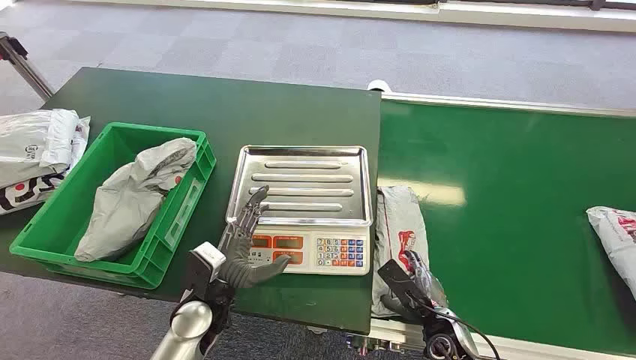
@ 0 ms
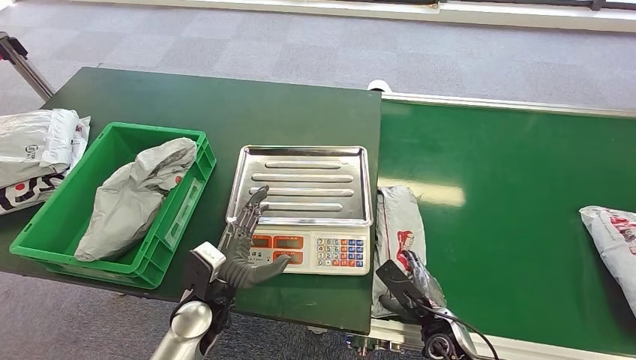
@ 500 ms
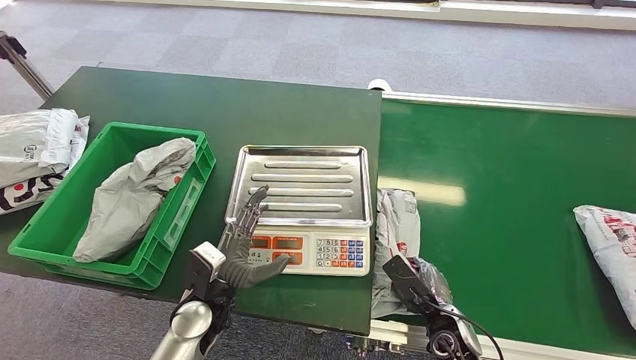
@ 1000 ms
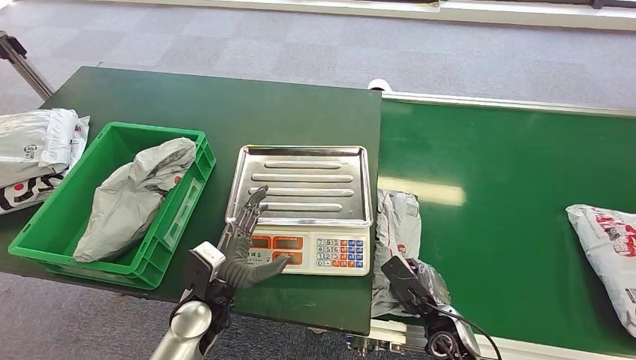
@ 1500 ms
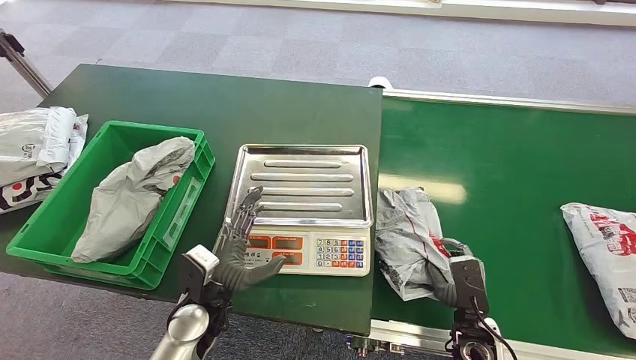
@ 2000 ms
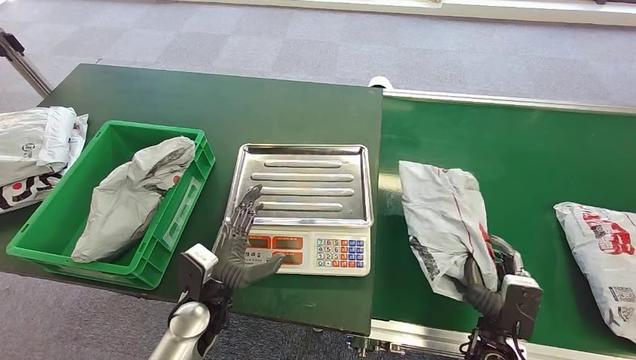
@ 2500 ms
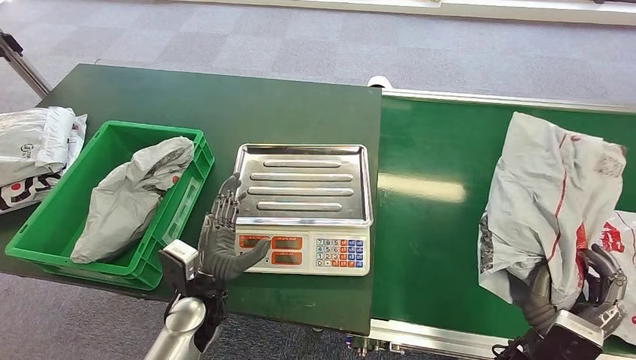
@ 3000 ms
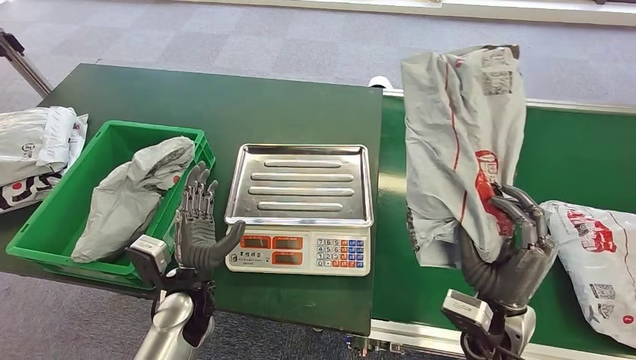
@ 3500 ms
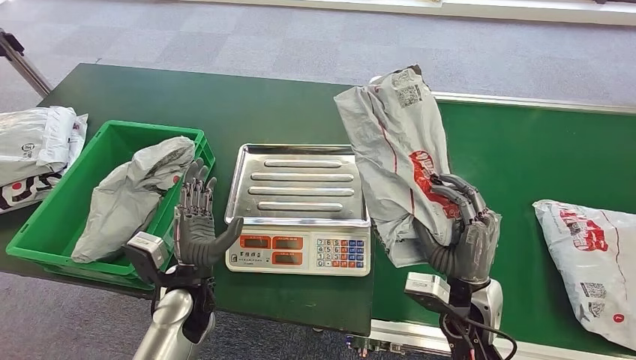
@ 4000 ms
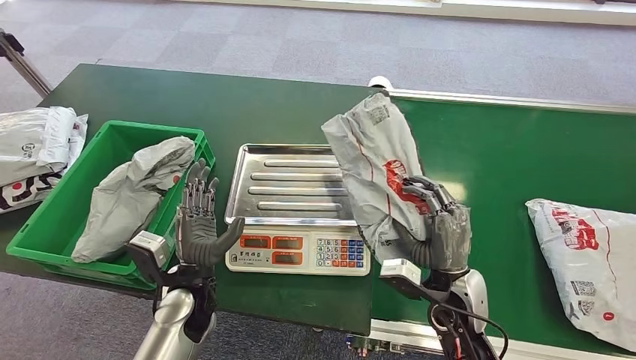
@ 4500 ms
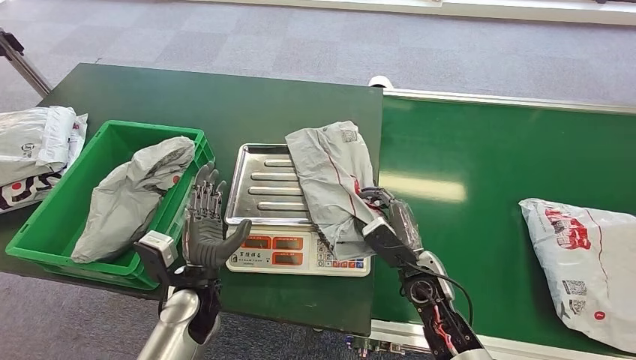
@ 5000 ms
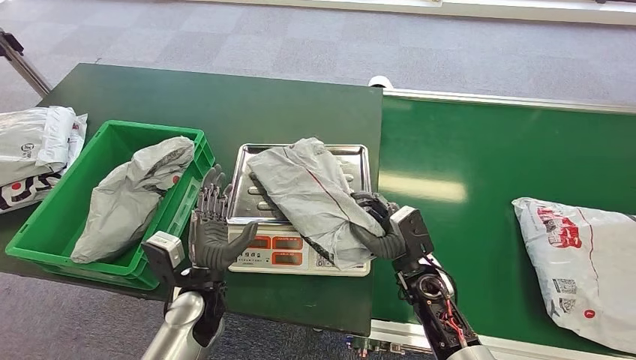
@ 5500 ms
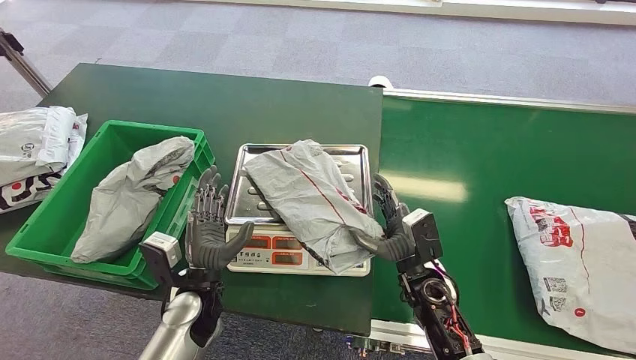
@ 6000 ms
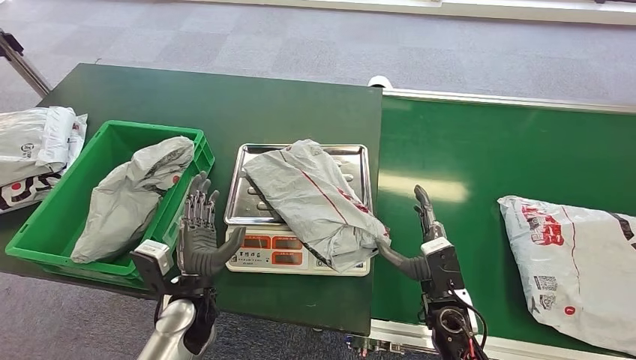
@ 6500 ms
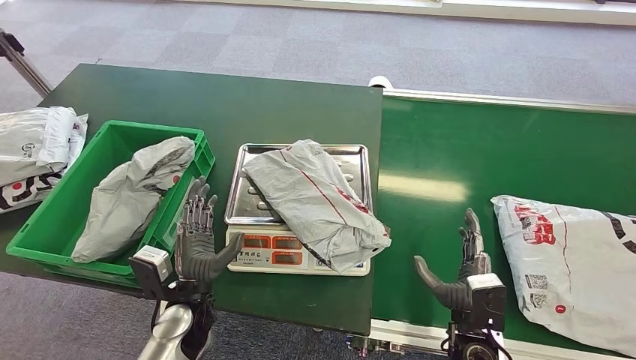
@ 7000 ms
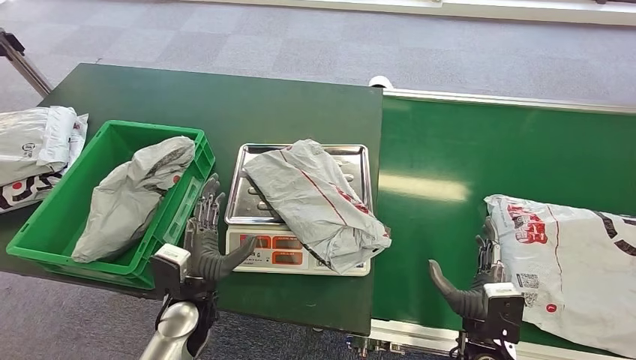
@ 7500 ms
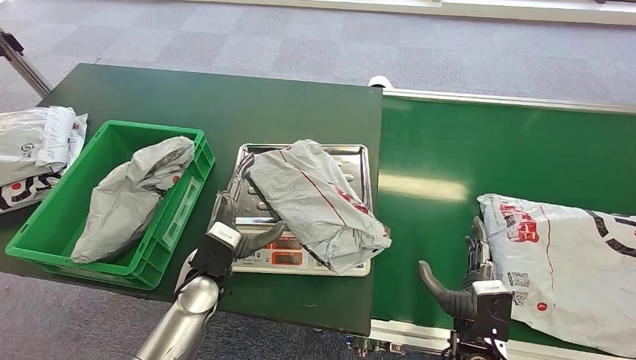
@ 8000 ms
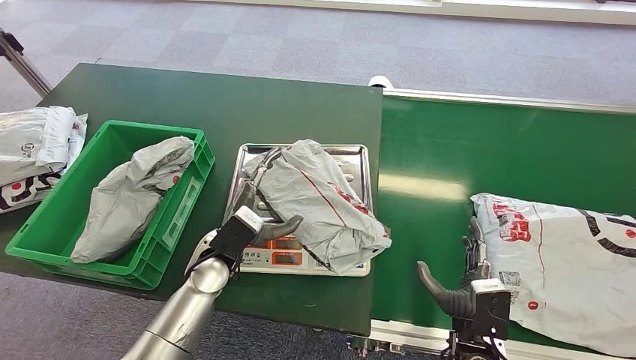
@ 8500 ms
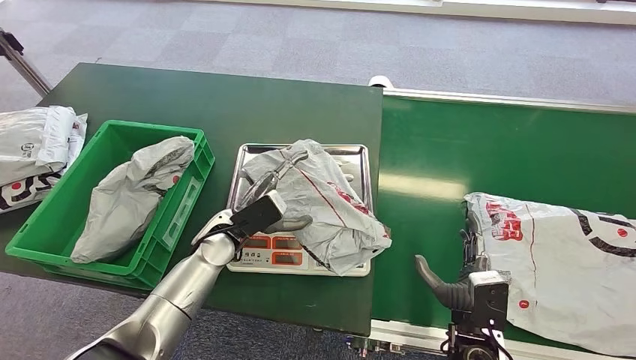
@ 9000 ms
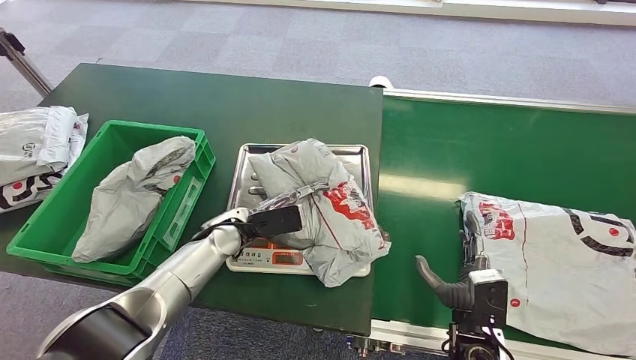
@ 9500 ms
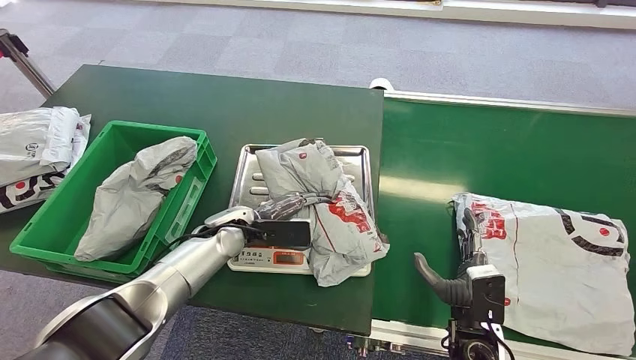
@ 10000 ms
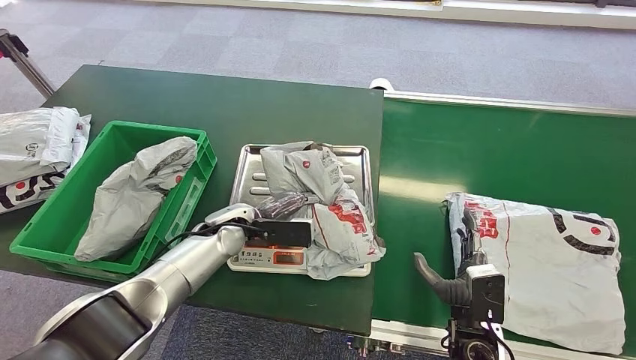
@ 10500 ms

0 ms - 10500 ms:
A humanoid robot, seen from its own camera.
Task of the whole recording: Weigh the package on the weighing device and place it in the left basket.
Step, 0 ms - 3000 ms: Pick up the package from the conveyor belt.
Step, 3500 ms - 6500 ms: Place the package onto the inbound machine.
6500 ms - 8500 ms: The right hand goes about 5 cm backward. Meanwhile the left hand goes approximately 5 cm forward.

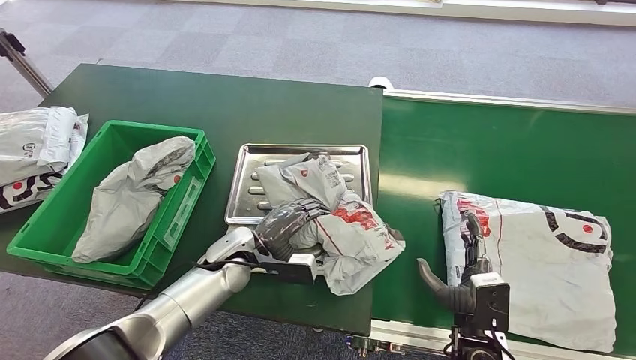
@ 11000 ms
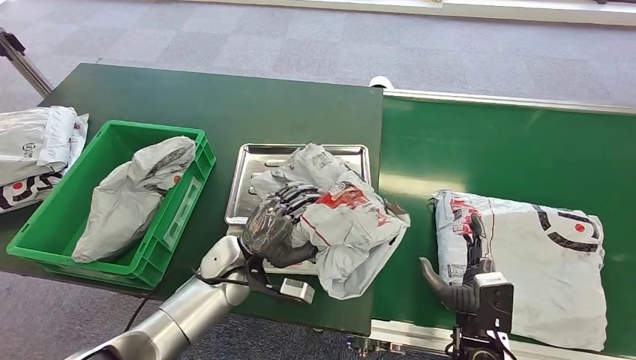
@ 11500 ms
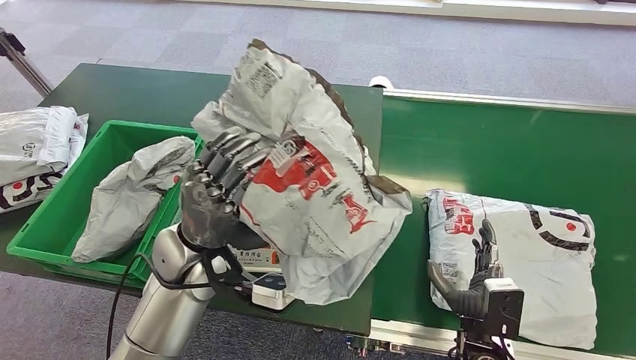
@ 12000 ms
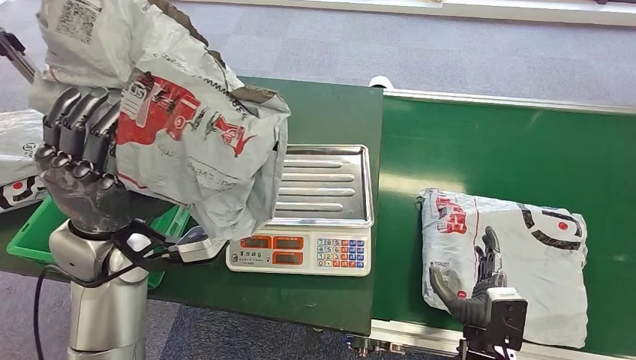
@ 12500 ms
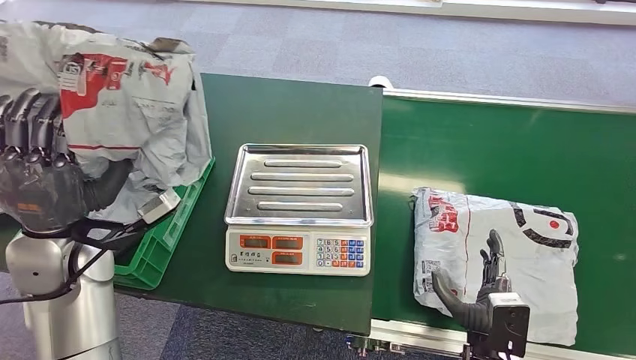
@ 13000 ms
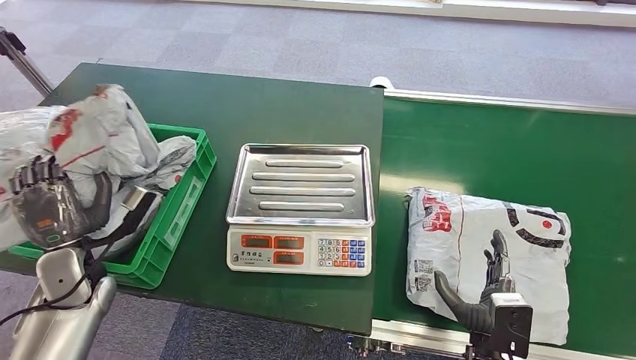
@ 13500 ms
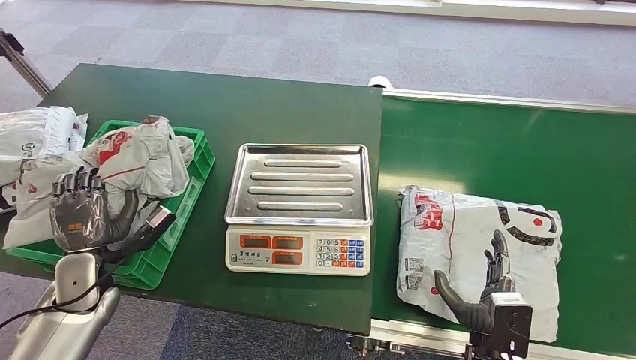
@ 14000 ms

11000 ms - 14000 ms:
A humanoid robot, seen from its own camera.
Task of the whole recording: Weigh the package on the weighing device and place it in the left basket.
Step, 12000 ms - 14000 ms: Place the package into the parcel locker.
